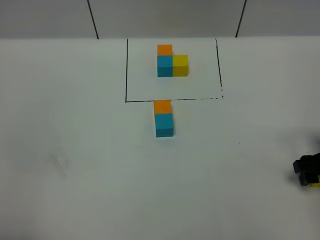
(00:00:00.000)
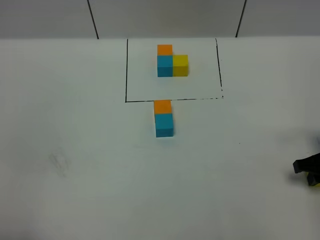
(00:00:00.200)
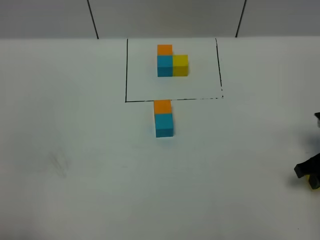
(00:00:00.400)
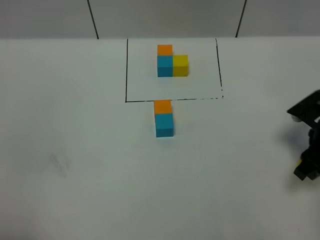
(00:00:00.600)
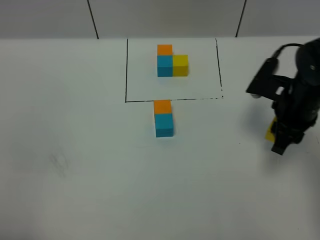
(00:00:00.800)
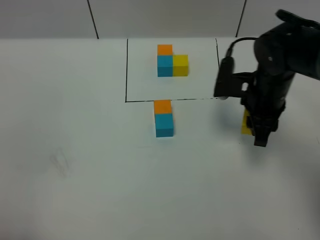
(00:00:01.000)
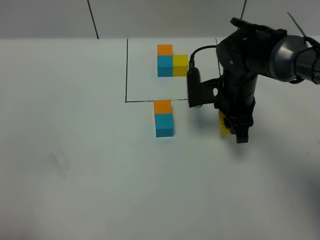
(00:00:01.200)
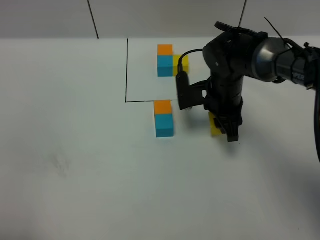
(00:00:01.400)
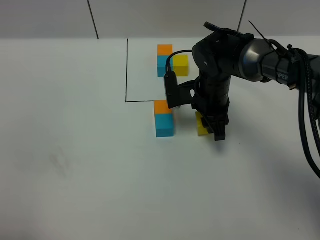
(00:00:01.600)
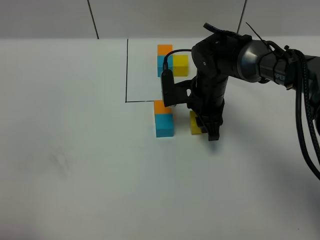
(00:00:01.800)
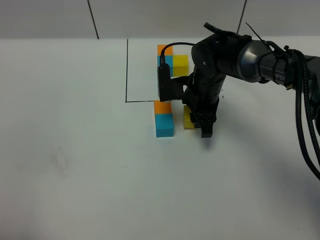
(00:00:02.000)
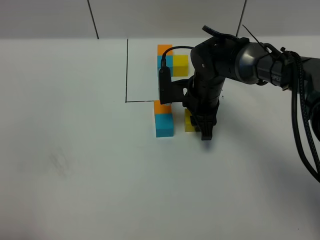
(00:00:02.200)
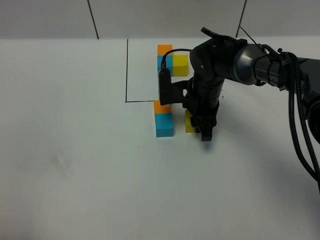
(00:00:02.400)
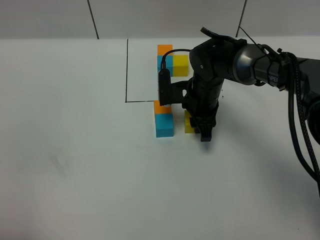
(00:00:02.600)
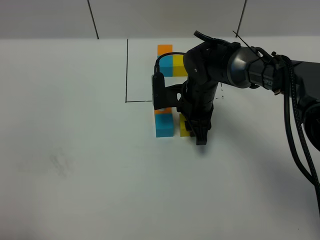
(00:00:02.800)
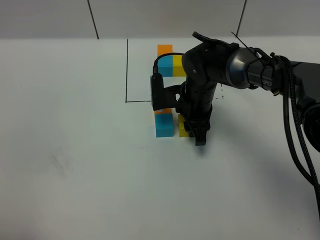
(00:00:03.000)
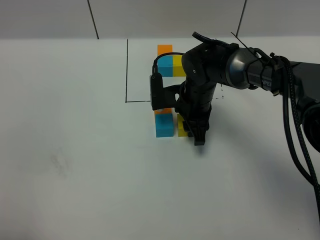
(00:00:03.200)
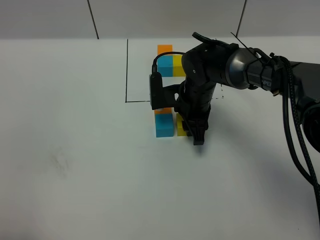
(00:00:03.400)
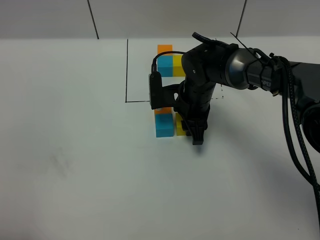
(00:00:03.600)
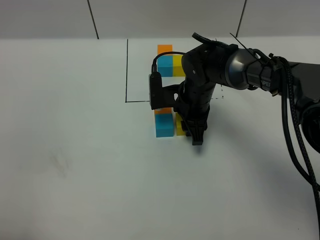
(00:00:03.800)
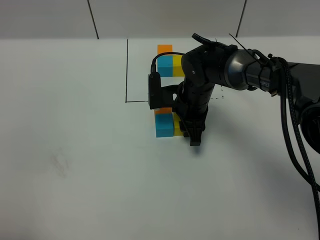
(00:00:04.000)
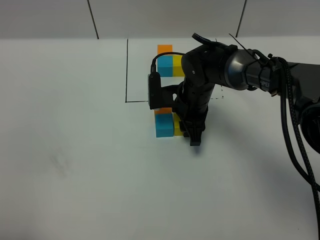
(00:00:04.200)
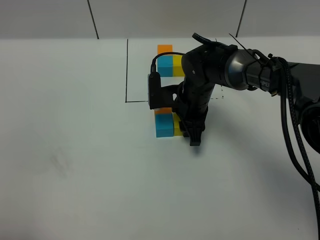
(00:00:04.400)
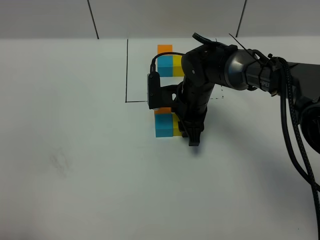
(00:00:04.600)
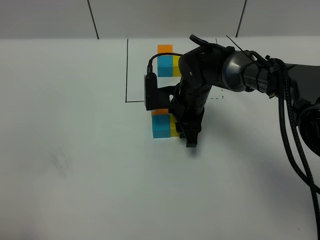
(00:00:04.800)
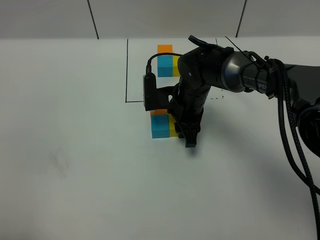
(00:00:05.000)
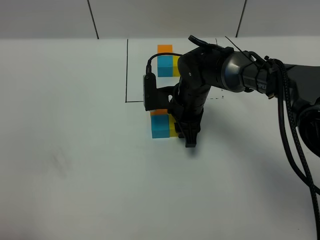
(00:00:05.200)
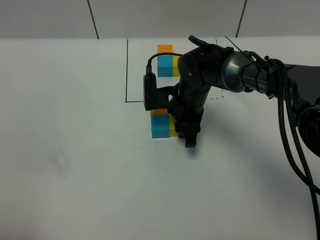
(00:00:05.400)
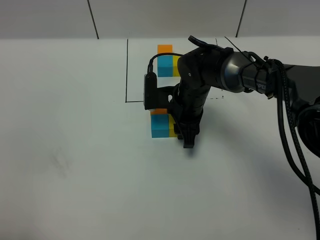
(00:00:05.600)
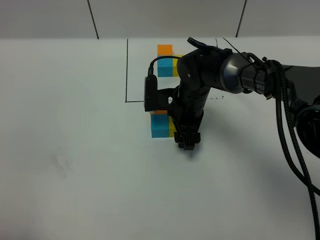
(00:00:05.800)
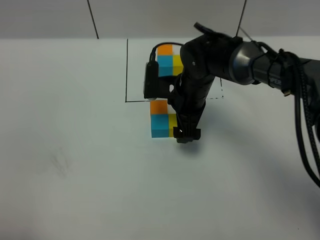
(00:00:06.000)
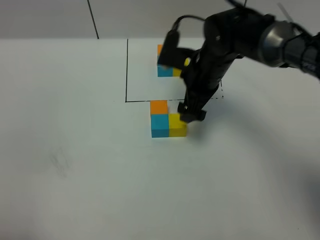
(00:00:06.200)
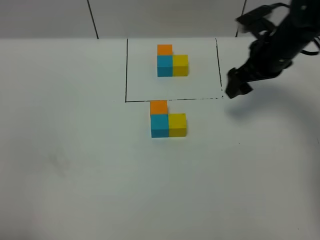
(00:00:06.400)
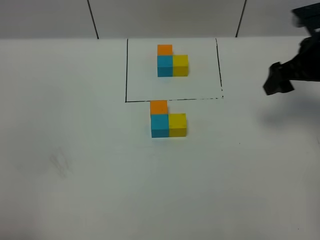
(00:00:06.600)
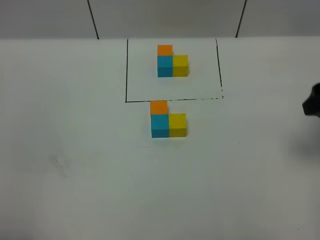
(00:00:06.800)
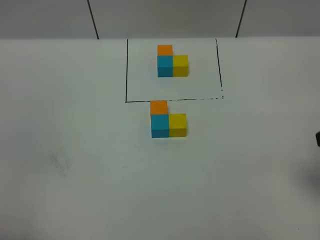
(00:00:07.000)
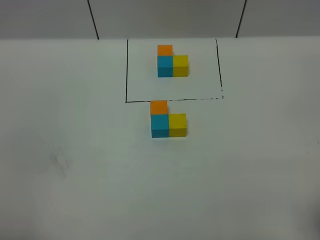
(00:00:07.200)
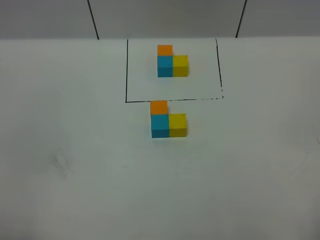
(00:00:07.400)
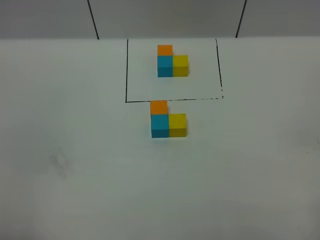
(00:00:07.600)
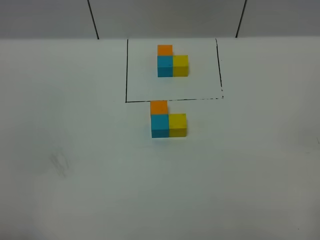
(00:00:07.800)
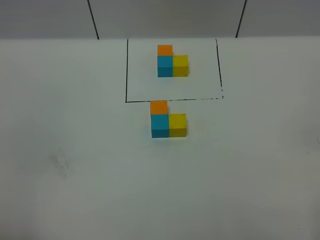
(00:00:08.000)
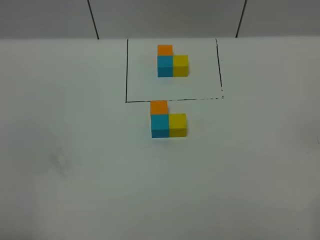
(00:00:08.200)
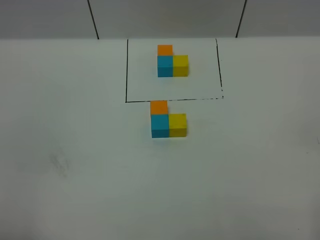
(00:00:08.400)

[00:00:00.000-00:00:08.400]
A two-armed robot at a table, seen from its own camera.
Task of the whole recording: According to the building block template in front, assemble the scattered blocks together.
Step, 00:00:00.000 to 00:00:05.400: Put the yellow build block on the right of the blue build block.
00:00:00.000 to 00:00:01.400: The right gripper goes some 25 cm to the left and forward, and closes up.
00:00:01.400 to 00:00:02.800: The right gripper ends up some 5 cm from where it was.
00:00:02.800 to 00:00:04.200: Neither gripper changes place.
00:00:04.200 to 00:00:05.600: Both grippers stay put.
00:00:05.600 to 00:00:07.000: The right gripper heads to the right, backward and upward, covering approximately 35 cm, and opens up.
